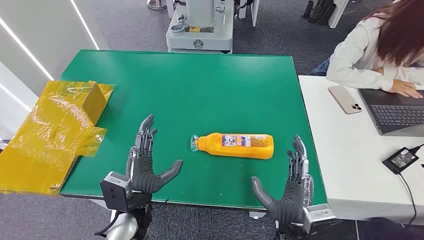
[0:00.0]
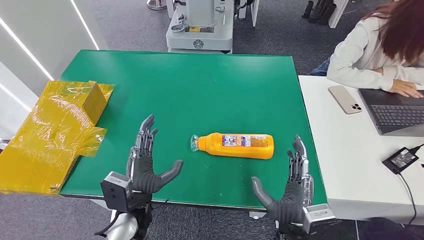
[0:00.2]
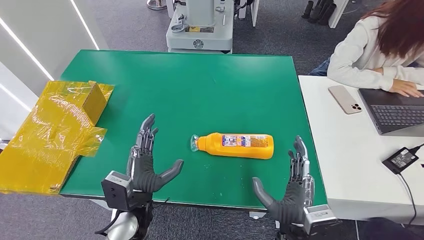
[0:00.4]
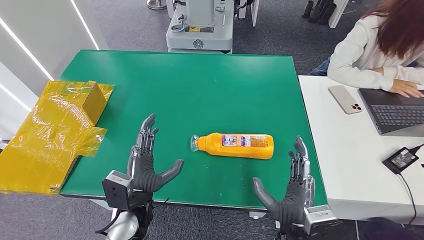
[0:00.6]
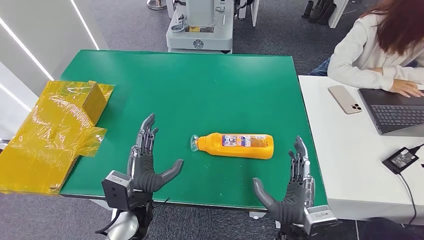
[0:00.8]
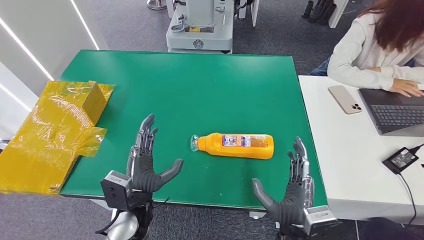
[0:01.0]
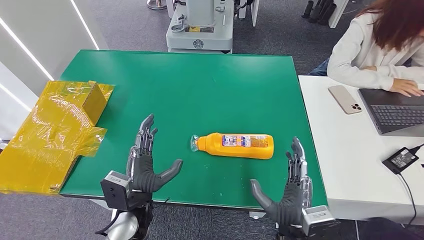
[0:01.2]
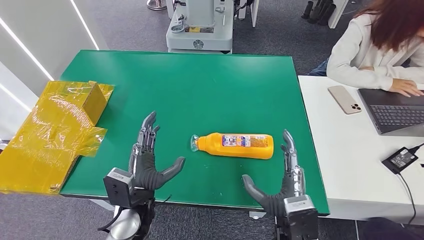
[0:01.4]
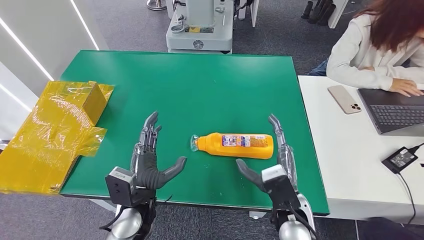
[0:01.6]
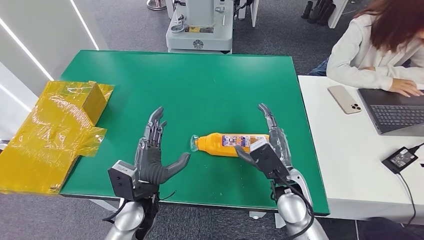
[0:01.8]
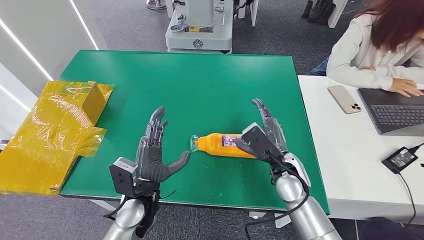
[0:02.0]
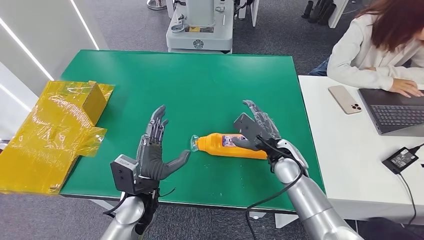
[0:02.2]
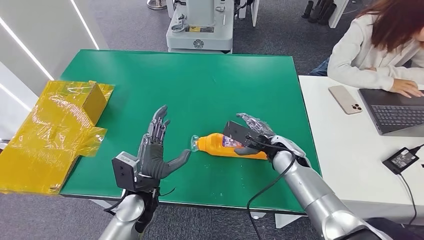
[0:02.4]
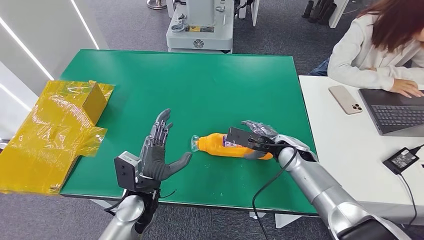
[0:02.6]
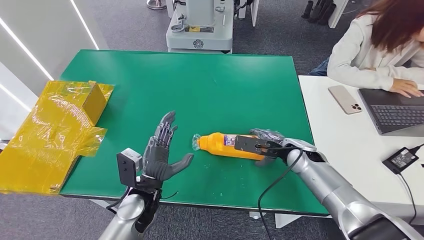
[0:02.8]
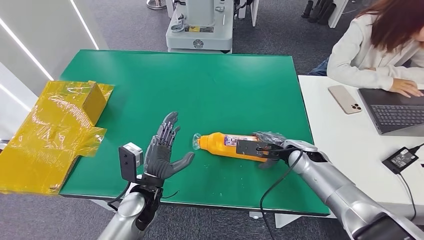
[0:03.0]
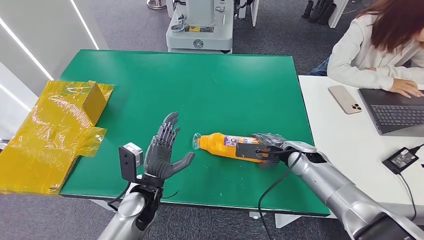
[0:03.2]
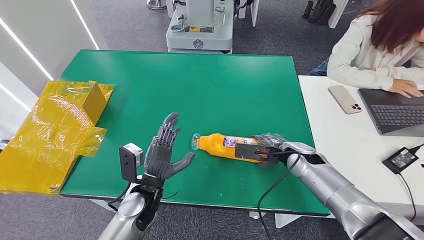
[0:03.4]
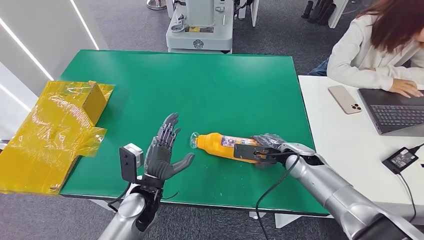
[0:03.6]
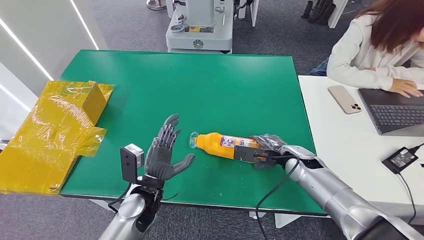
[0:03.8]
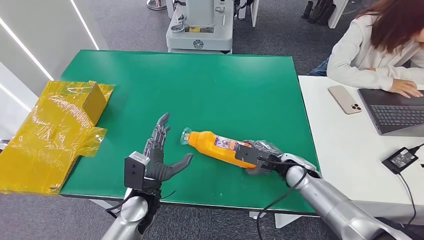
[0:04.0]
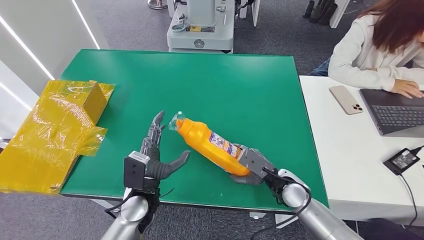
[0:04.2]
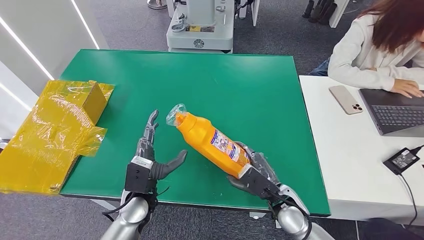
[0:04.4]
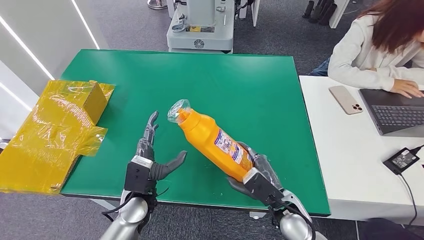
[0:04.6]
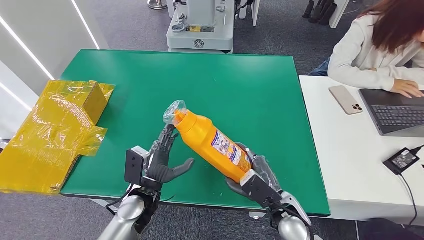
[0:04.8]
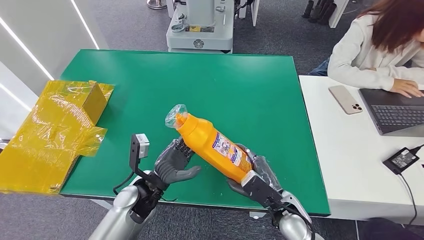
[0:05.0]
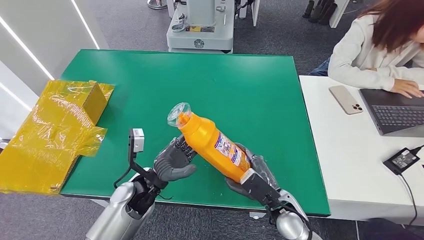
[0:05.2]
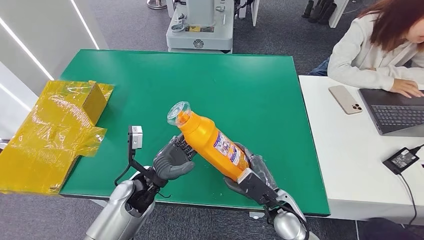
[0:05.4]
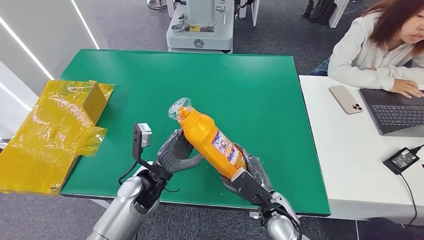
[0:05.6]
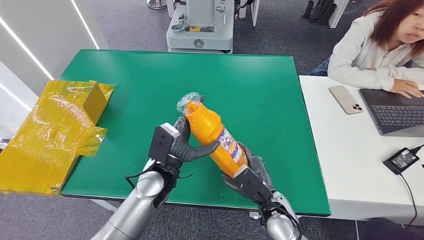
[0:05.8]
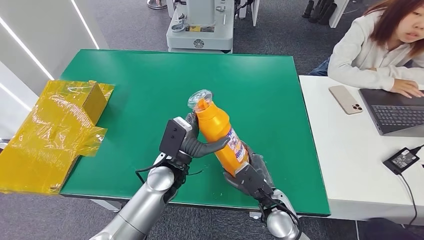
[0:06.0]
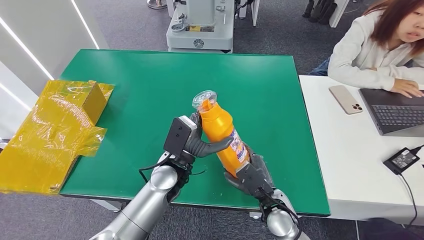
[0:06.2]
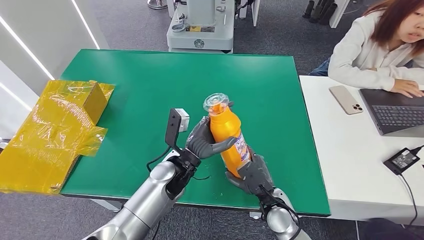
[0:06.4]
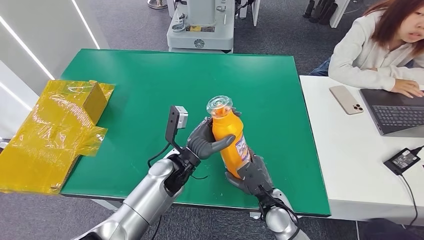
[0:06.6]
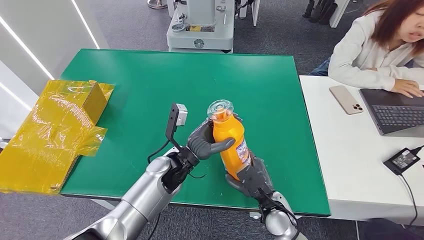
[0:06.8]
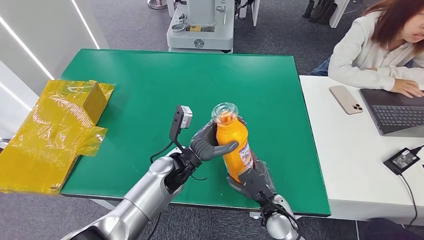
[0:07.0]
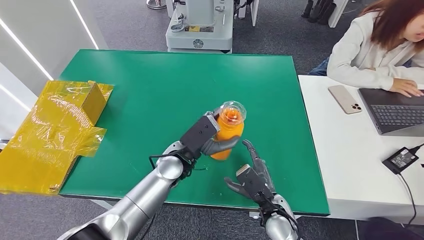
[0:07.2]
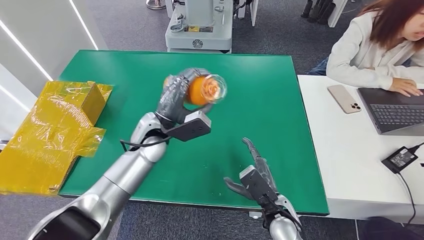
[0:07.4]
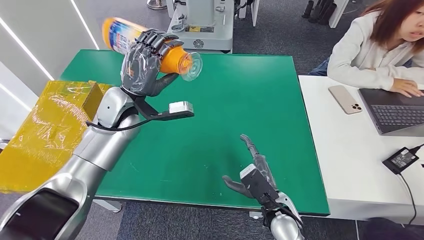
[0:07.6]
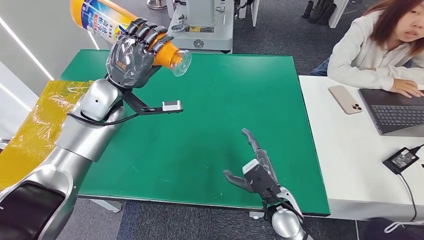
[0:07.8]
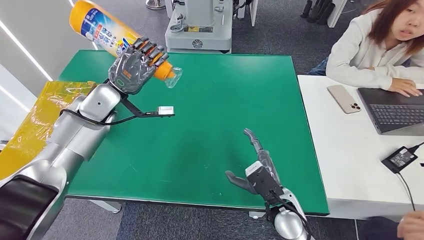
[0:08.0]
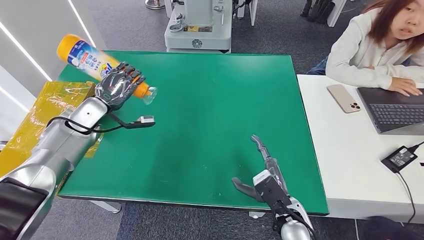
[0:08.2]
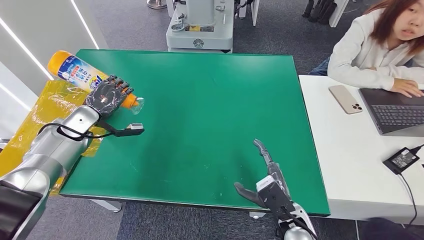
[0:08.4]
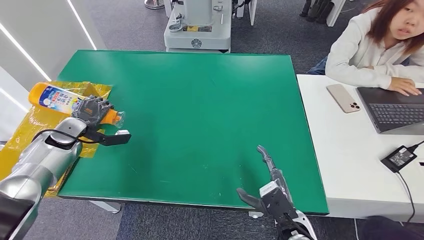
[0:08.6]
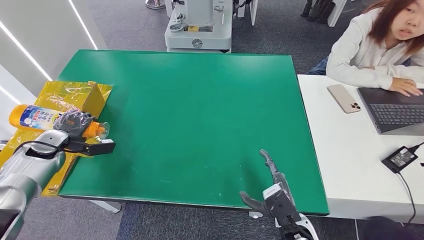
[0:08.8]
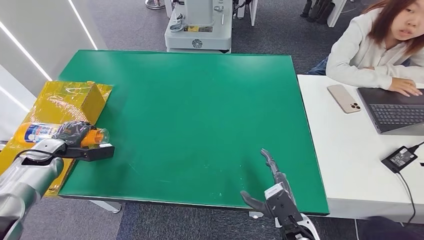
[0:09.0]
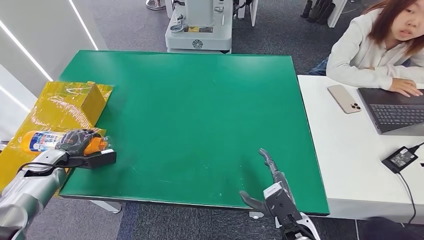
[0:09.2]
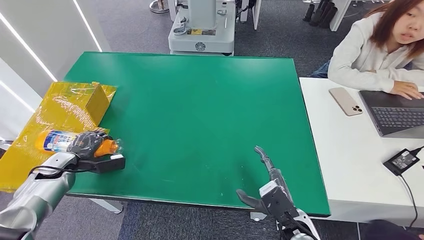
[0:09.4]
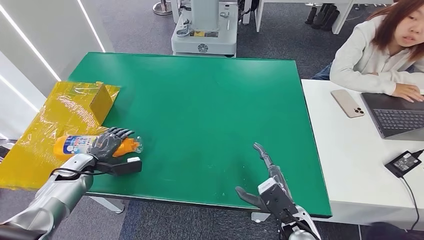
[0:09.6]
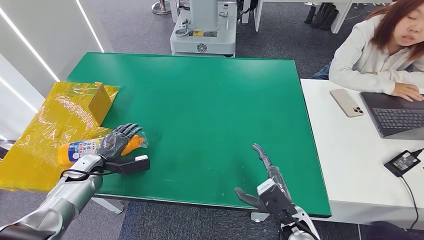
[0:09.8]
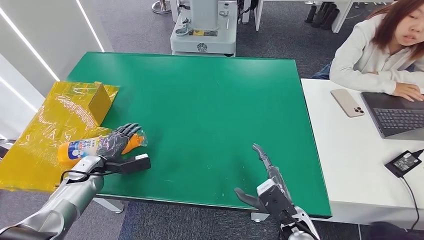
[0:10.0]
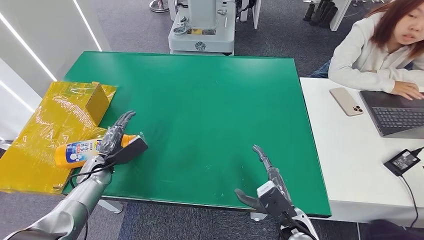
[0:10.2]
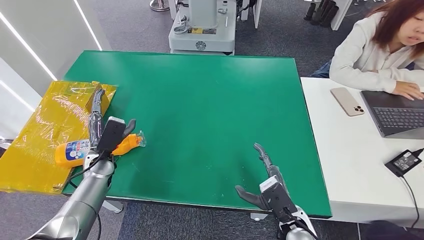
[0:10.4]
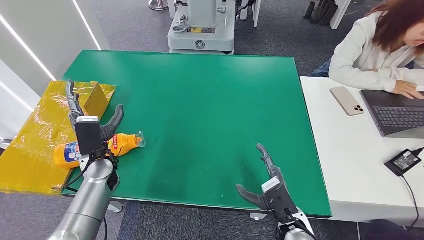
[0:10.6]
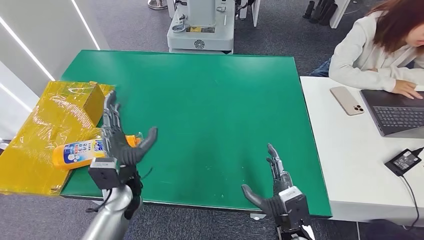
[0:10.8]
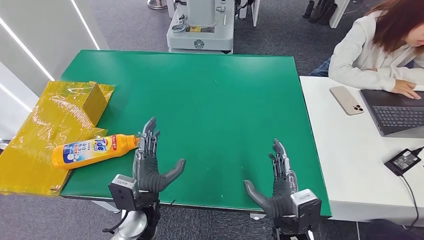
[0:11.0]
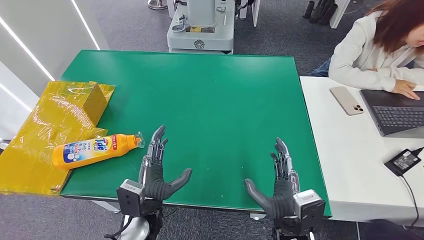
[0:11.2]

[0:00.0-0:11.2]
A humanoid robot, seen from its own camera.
Step, 0:00.0 to 0:05.0: Pick up the bottle from the table.
Step, 0:06.0 to 0:11.2: Turn the bottle to the front side.
0:01.6 to 0:03.2: The right hand travels forward and to the right by roughly 20 cm.
0:03.2 to 0:04.8: The right hand is displaced backward and to the left by roughly 15 cm.
0:04.8 to 0:06.4: The left hand goes roughly 10 cm to the right, forward and upward.

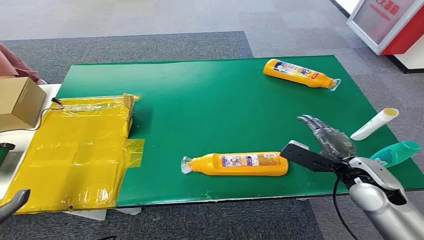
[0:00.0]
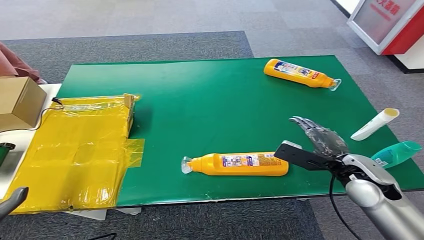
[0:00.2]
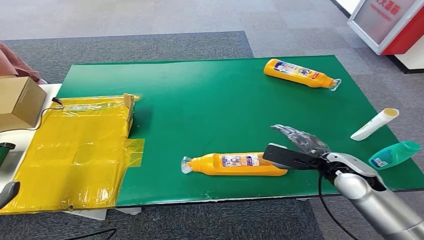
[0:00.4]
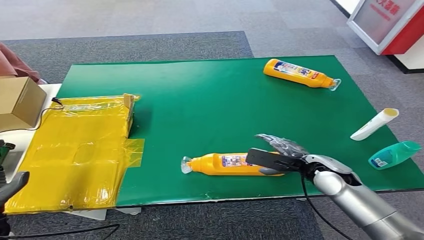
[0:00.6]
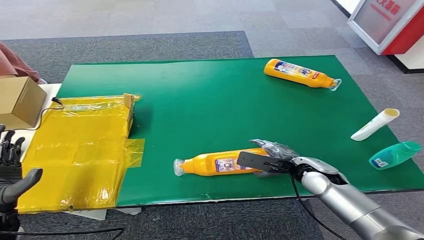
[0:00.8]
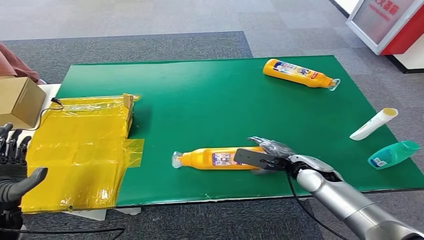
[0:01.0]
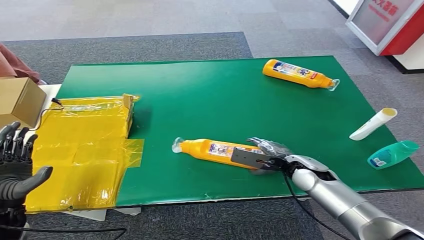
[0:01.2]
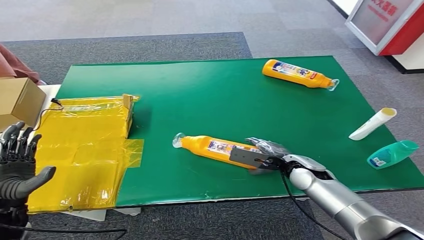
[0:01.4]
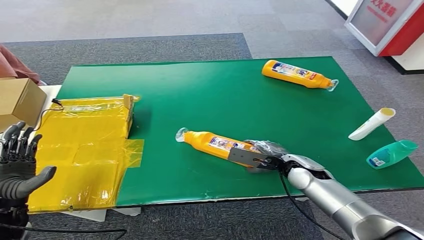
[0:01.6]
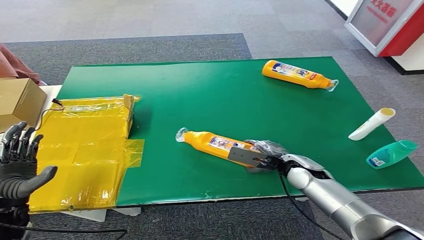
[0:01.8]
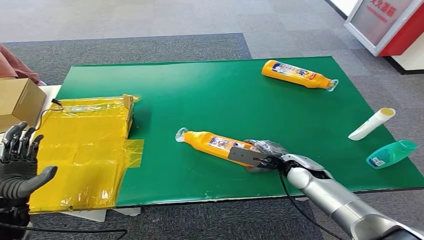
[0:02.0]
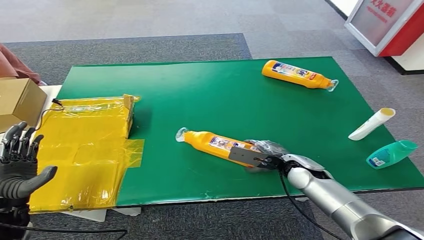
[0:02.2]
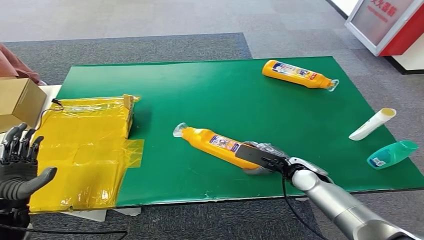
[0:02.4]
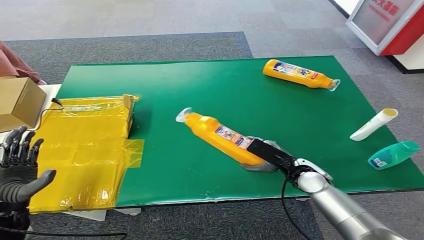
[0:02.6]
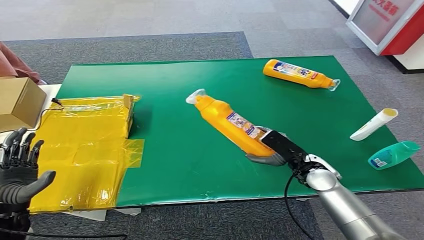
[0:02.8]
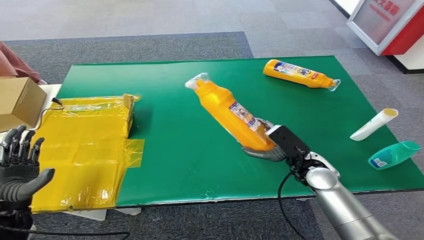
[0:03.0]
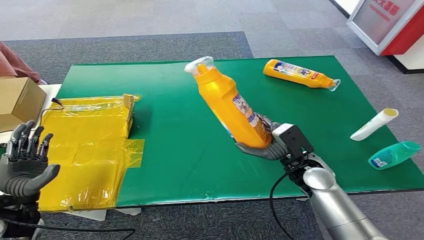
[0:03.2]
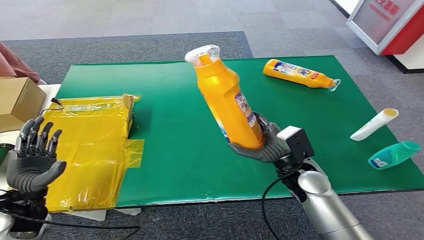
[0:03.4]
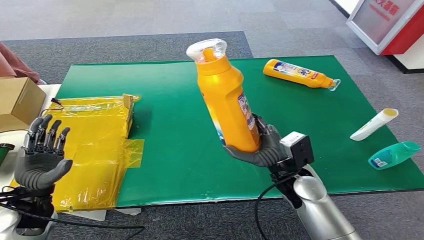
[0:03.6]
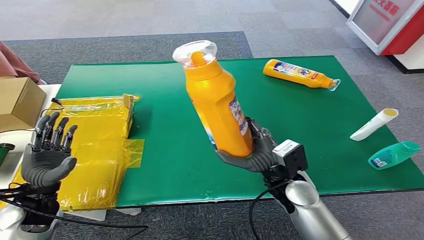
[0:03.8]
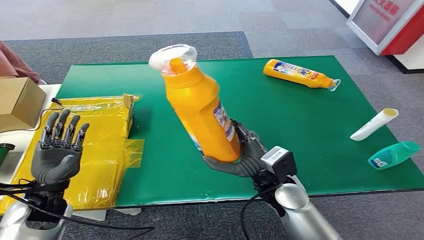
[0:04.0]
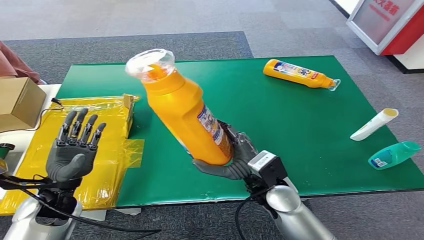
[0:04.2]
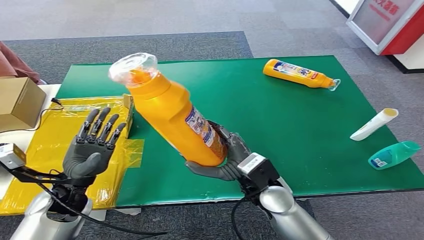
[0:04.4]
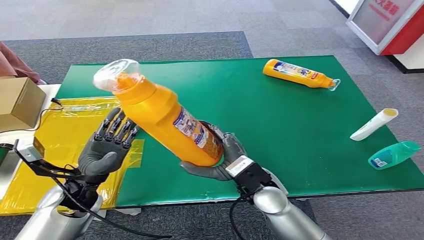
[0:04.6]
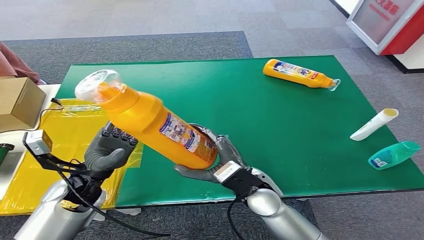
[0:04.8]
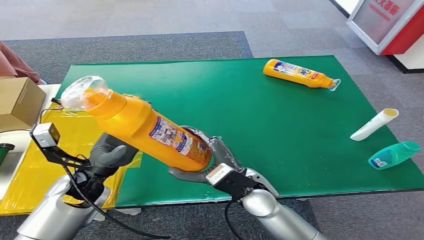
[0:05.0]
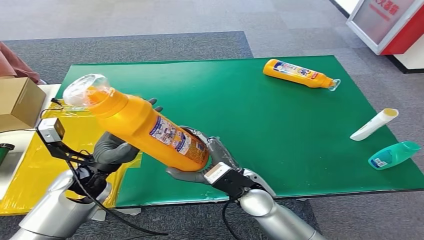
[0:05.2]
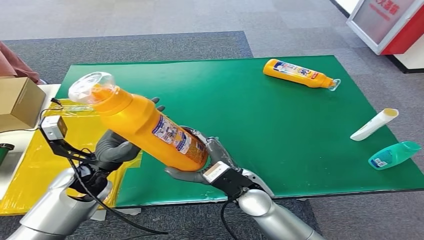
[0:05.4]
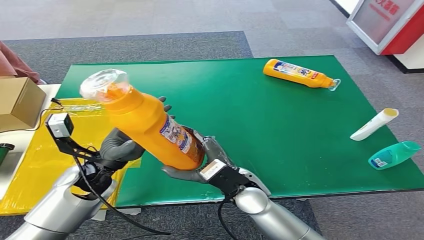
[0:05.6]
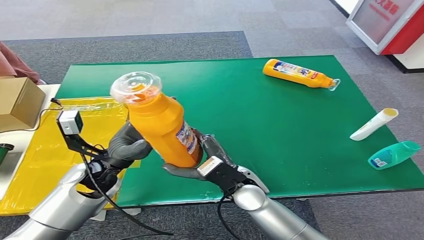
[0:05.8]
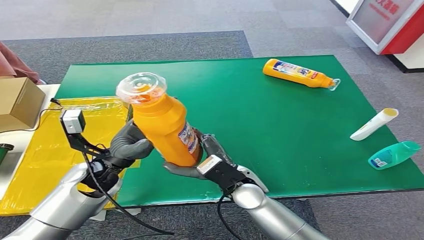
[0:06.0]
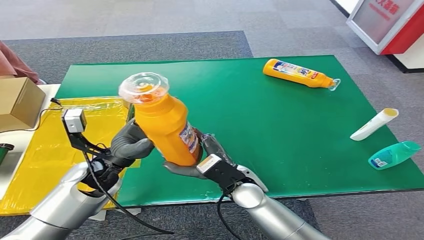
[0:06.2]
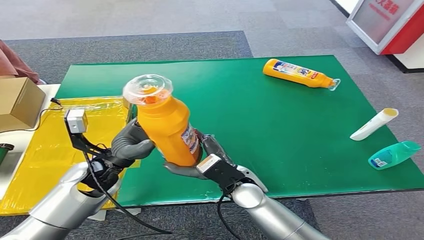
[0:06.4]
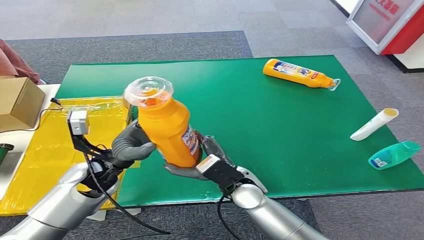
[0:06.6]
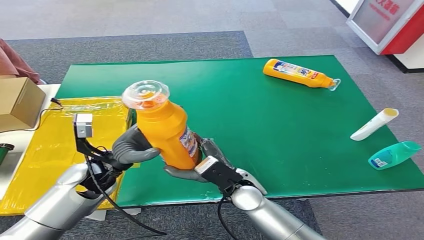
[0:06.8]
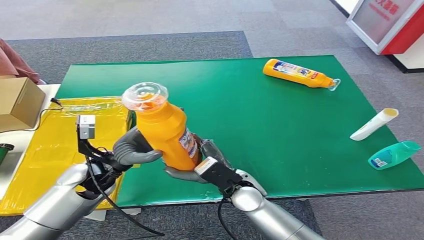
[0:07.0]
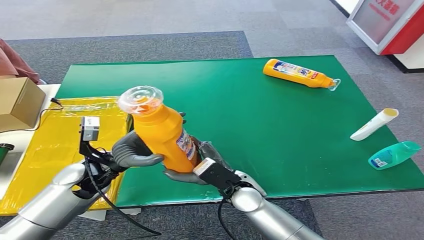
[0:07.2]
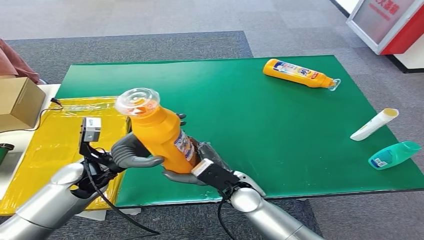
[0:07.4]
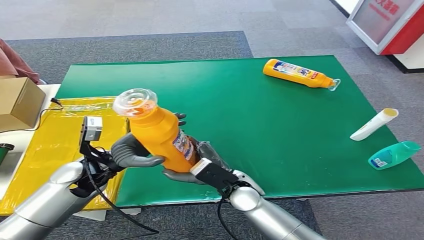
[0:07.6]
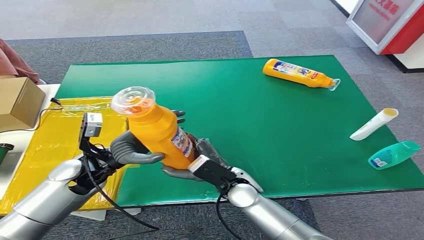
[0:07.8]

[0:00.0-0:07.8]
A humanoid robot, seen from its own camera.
Step, 0:00.0 to 0:03.6: Pick up the bottle from the table.
0:04.6 to 0:06.2: The left hand travels to the right by roughly 5 cm.
